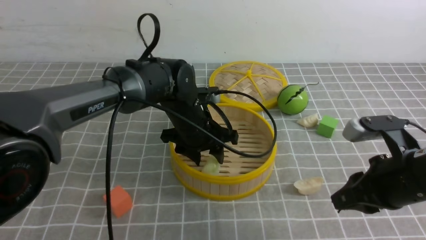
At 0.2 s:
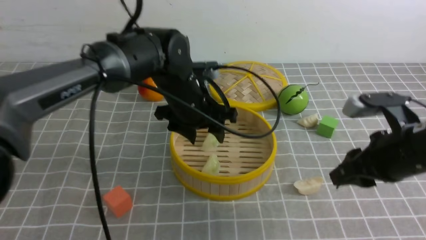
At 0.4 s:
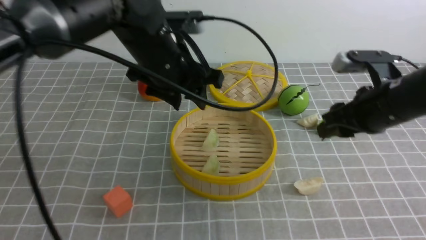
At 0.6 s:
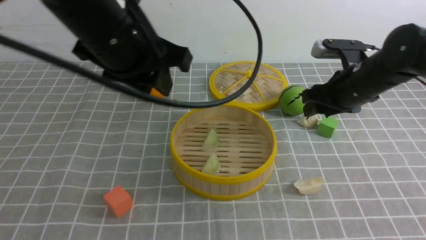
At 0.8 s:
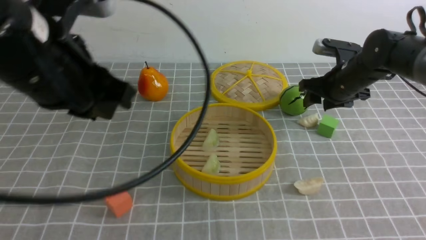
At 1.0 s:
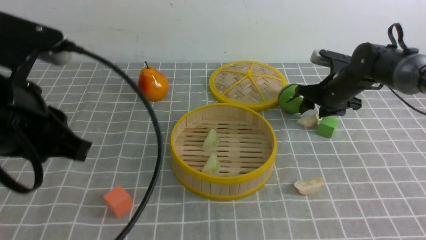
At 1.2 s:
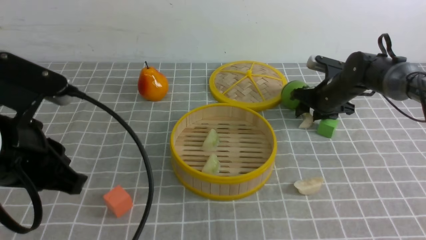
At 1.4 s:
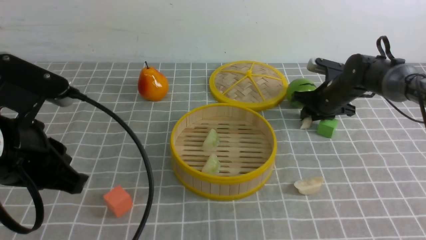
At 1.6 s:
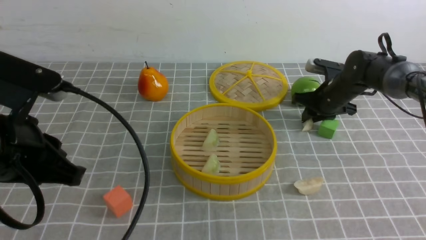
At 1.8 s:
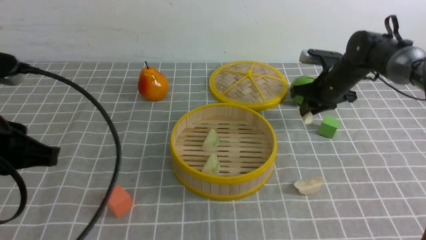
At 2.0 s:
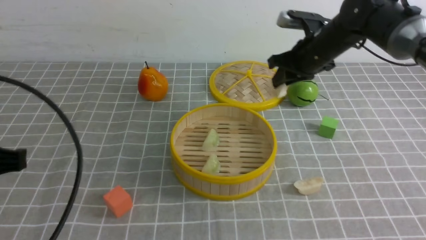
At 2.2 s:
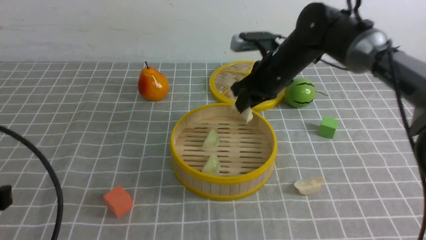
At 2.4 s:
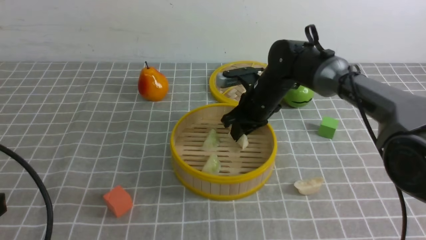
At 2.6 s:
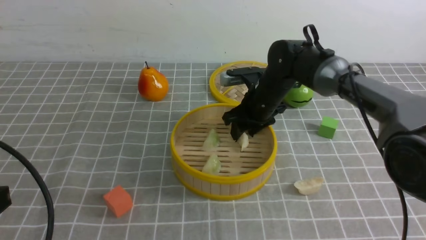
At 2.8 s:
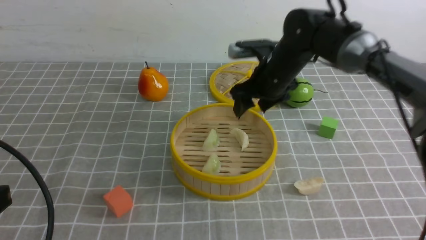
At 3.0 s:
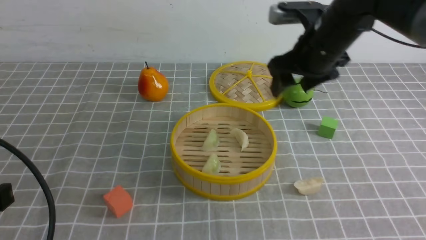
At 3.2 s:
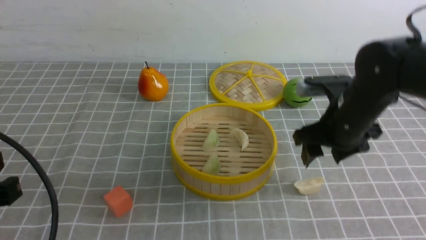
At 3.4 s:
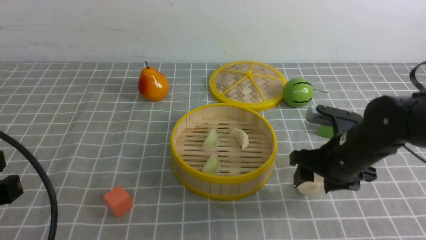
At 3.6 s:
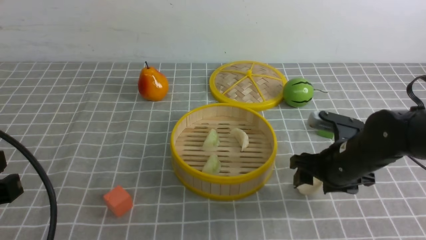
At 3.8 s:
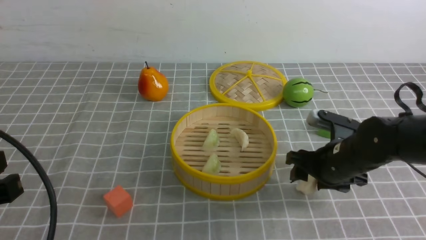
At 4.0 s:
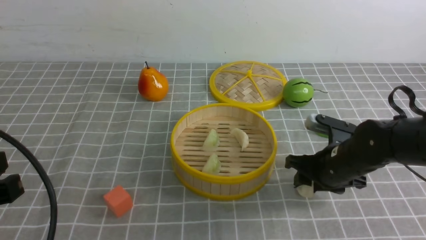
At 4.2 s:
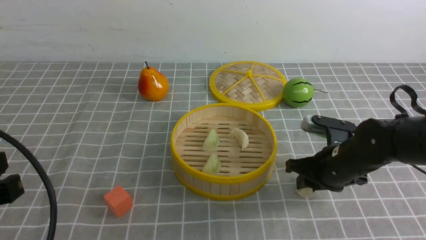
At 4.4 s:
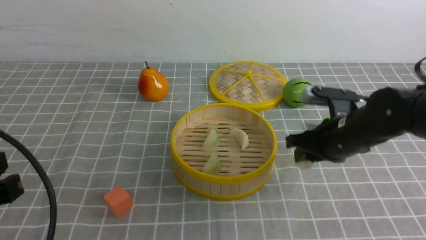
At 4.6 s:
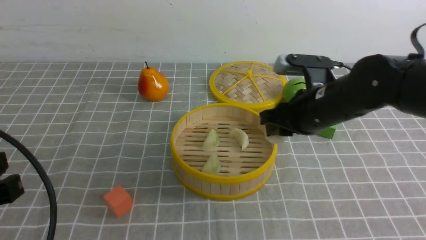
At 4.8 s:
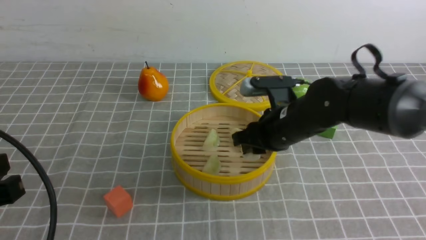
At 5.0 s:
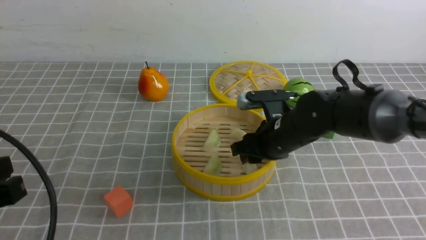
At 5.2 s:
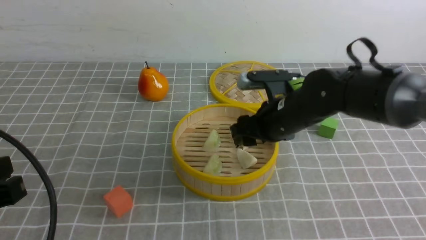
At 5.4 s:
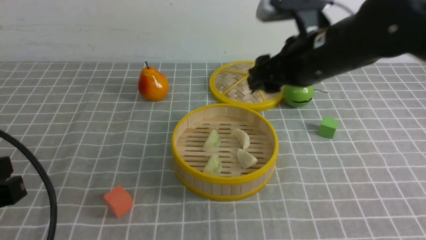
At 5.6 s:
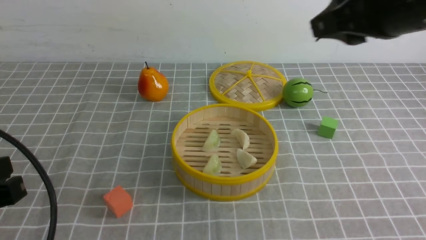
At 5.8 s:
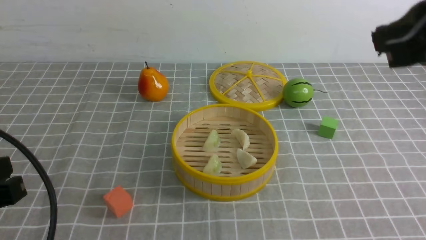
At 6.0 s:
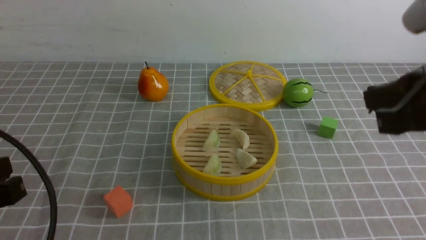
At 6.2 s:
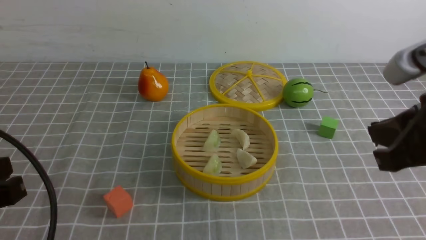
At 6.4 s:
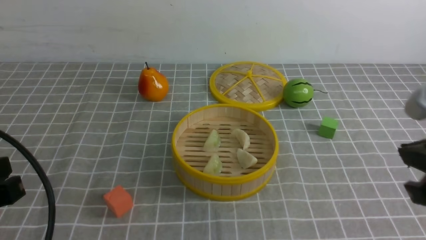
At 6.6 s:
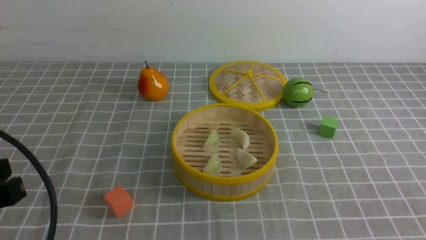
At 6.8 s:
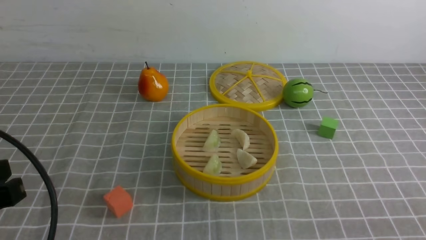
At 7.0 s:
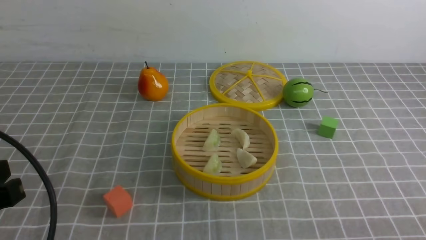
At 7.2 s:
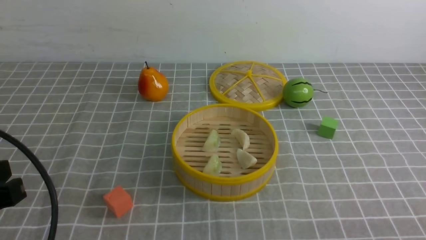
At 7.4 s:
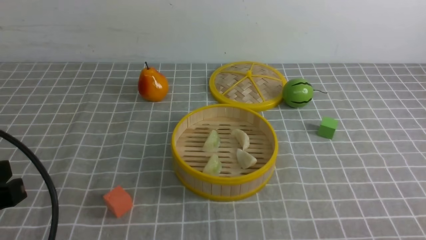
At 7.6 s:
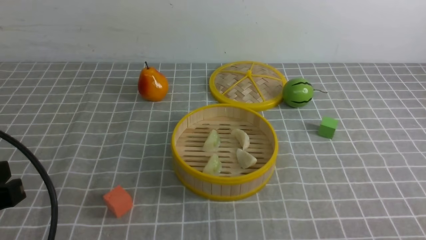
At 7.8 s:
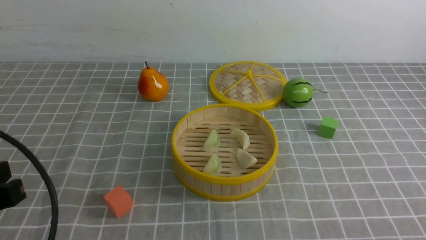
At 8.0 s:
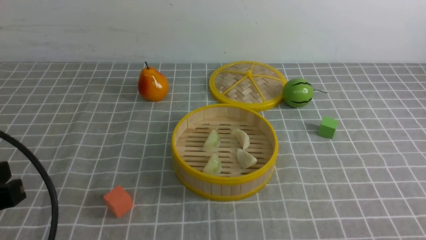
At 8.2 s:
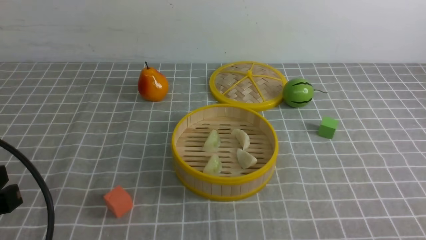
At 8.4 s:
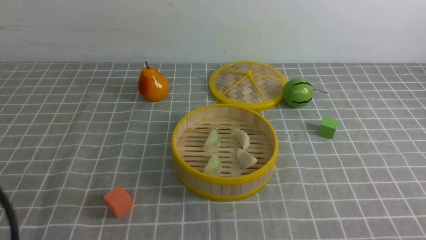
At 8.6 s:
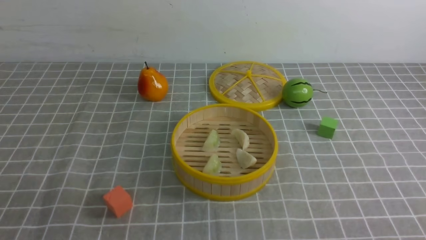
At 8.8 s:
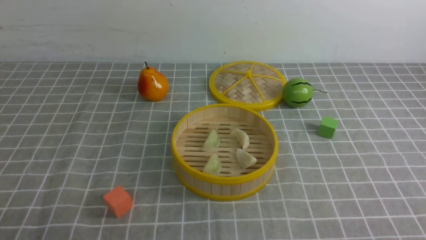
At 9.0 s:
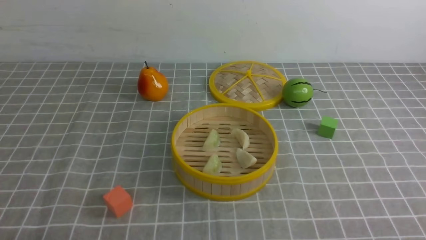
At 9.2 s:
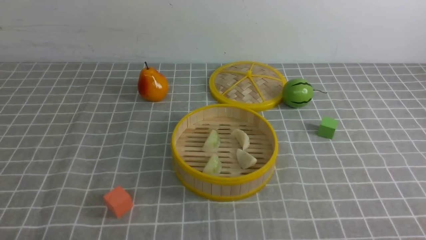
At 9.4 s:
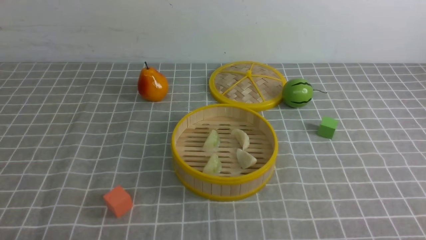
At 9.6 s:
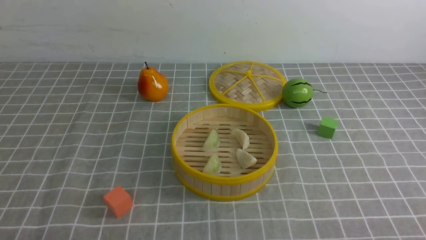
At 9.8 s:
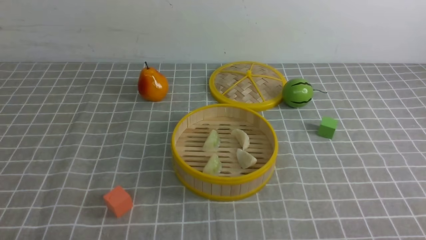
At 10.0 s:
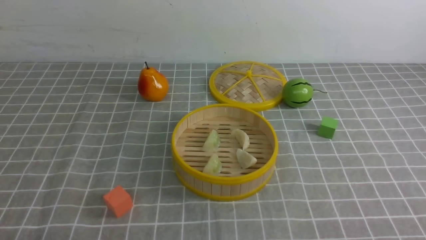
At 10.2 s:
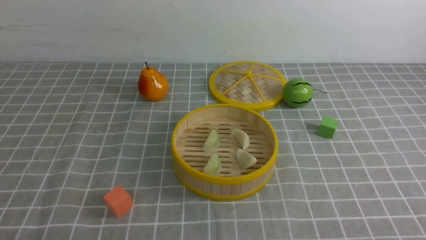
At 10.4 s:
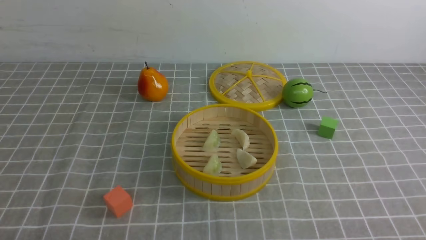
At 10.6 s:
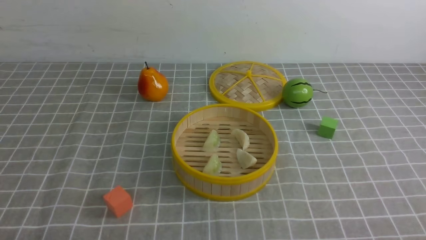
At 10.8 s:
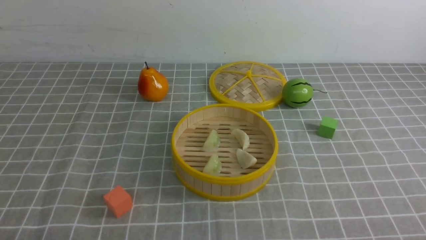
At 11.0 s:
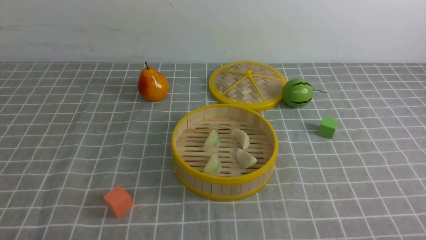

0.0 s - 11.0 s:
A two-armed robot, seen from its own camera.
Task of the whole recording: put the dumplings into the steamer on the table with the grey tablecloth.
Step, 0.2 s - 1.8 s: use the right arm to grab a dumpling.
Step, 2.0 s - 2.6 s: use the right arm to put the dumpling into the steamer.
Step, 3.0 s - 4.4 s: use the right arm to grab a dumpling.
Step, 4.6 s - 5.2 s: use the right arm to put the dumpling into the steamer.
0.0 s - 1.6 s: The right gripper shifts roughly 25 cm forward, and opens and closes again; the left gripper shifts roughly 30 cm backward, to the left and upward, and closes its fingers.
1.6 s - 3.2 s: The left gripper shifts some 5 cm backward, and closes up. The right gripper is displaced backward, upward and to the left by roughly 20 cm, and opens.
3.2 s - 4.8 s: The right gripper heads to the left, covering some 5 cm, moves some 10 cm downward and comes back, and closes its fingers.
4.8 s - 6.2 s: The right gripper is displaced backward, upward and to the right by approximately 25 cm, and closes its fingers.
6.2 s - 7.8 s: The right gripper shifts approximately 25 cm downward, backward and to the right.
7.8 s - 9.4 s: The left gripper heads downward and backward, covering about 15 cm.
9.4 s - 11.0 s: Both grippers stay put.
